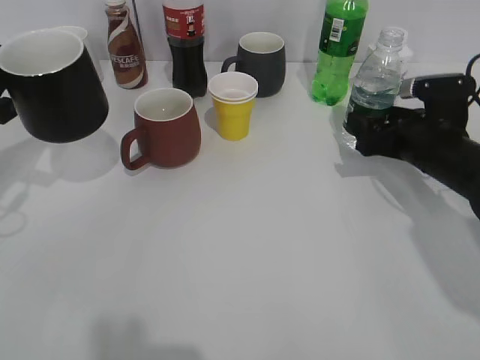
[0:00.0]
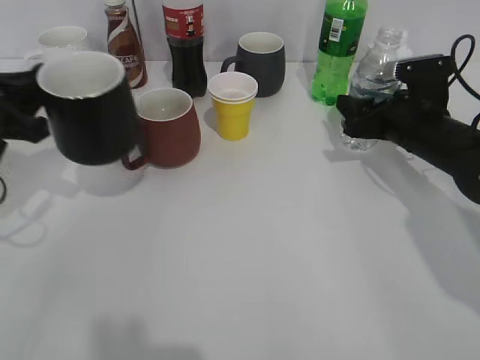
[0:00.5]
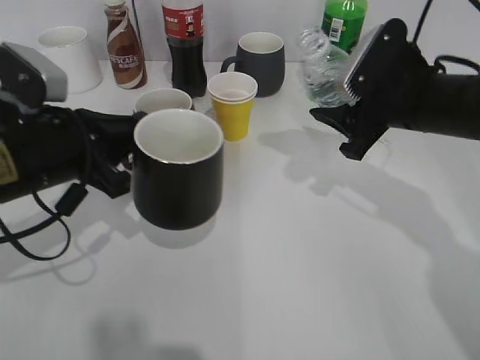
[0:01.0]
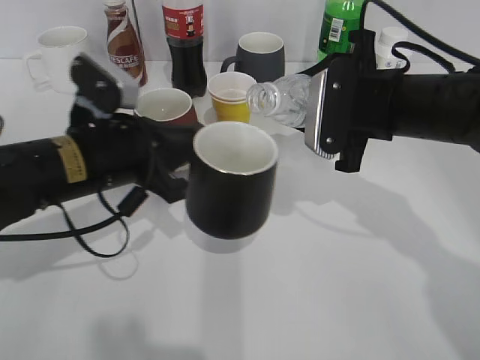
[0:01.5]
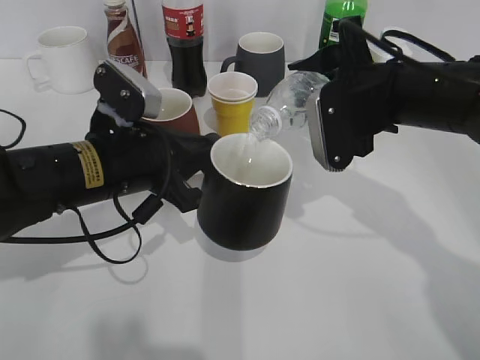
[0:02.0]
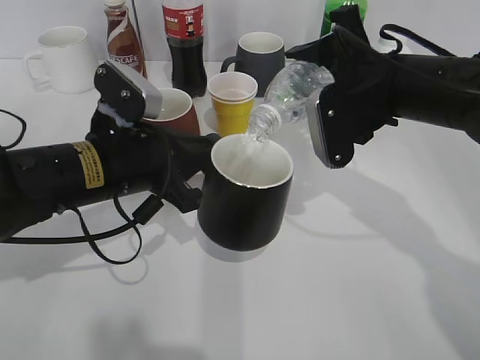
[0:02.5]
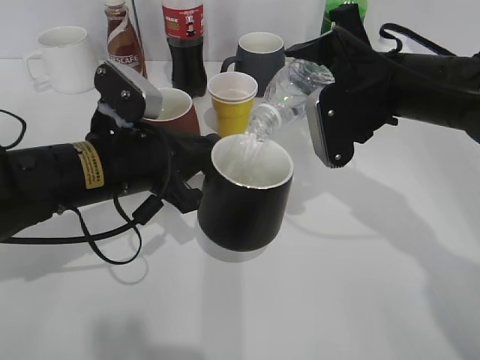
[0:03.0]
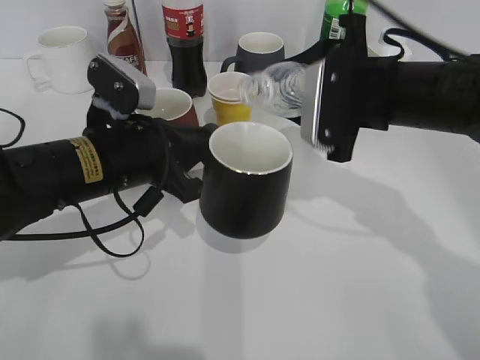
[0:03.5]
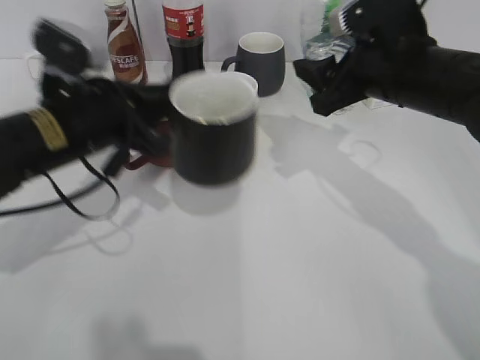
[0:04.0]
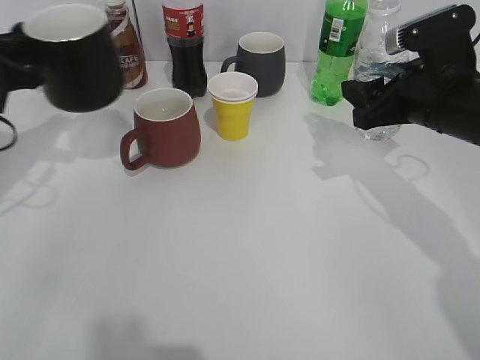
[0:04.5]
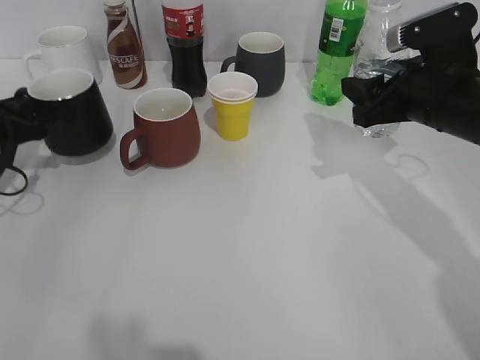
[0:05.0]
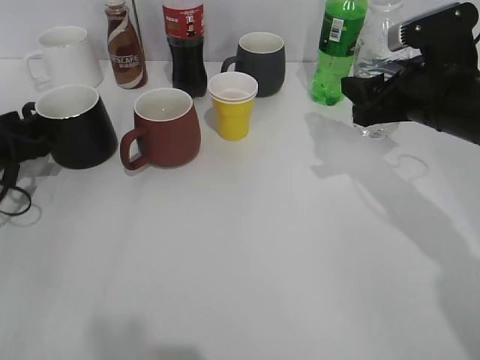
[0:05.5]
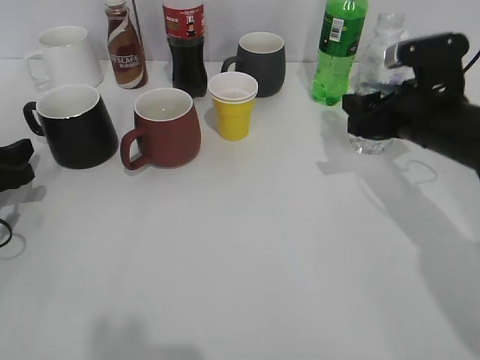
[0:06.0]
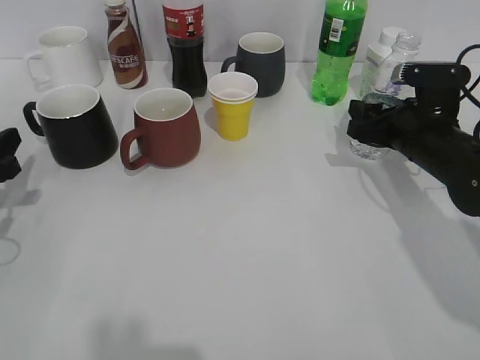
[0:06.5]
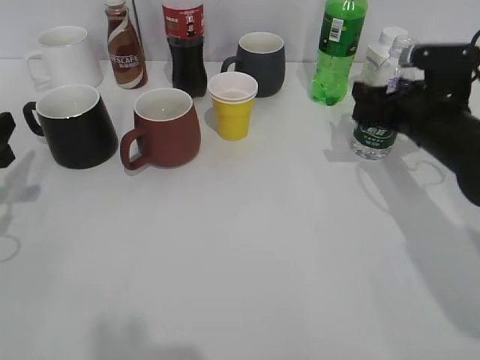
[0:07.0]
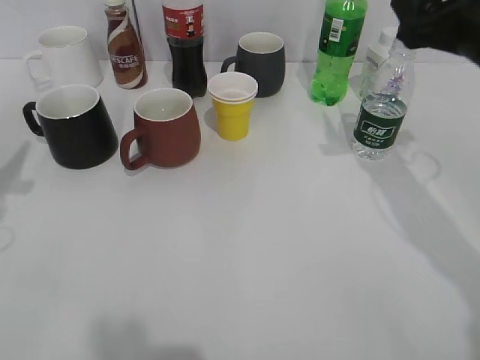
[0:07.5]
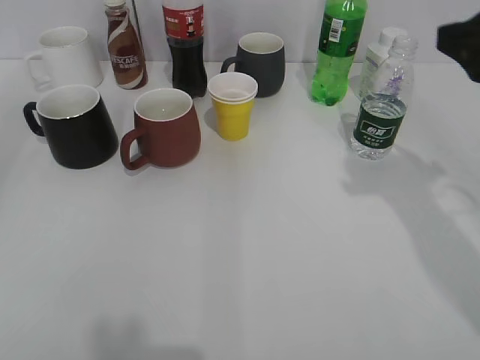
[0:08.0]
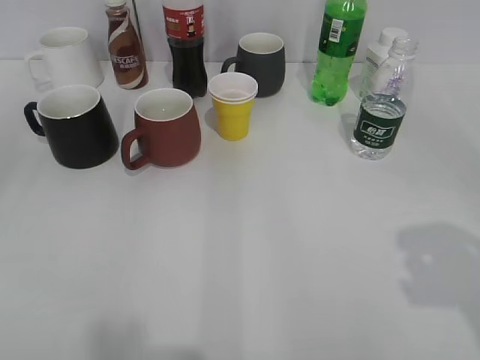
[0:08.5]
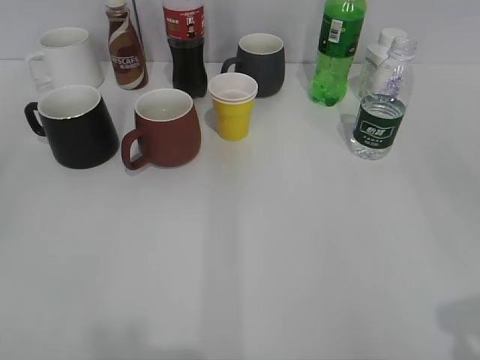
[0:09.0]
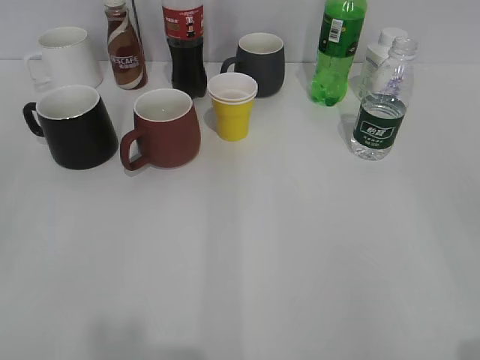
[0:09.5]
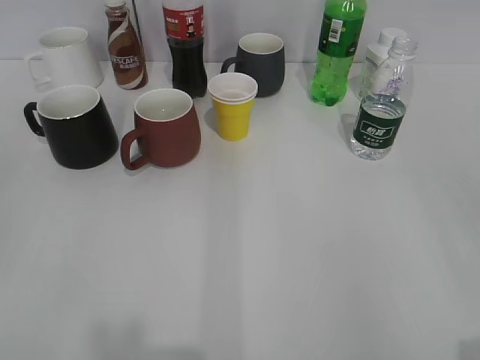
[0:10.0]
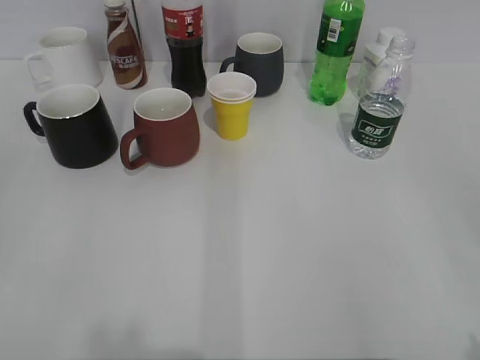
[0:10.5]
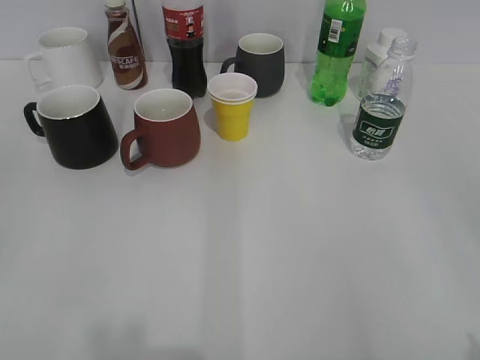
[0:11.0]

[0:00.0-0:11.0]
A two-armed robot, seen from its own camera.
Step, 0:00.5 to 0:03.5: Pour the water from bottle to cup with right gripper.
Step, 0:04.0 to 0:05.0: Place the black cup on the table with left gripper.
Step, 0:06.0 to 0:07.0: Place the water bottle on the table with right gripper.
0:00.0 to 0:02.0: The left gripper heads to the right, covering roughly 20 cm. The right gripper shifts about 15 cm upward and to the left, and closes its fingers.
0:02.0 to 0:03.5: The grippers stay close to where they were, moving slightly.
0:03.5 to 0:05.5: The left gripper moves to the left, roughly 20 cm, and opens. The right gripper moves to the right, approximately 5 cm.
0:05.5 to 0:07.5: The left gripper moves upward and backward, about 15 cm. Meanwhile the right gripper shifts about 5 cm upward, and opens.
0:07.5 to 0:09.0: The left gripper travels backward and upward by approximately 25 cm, while the right gripper shifts some 30 cm backward.

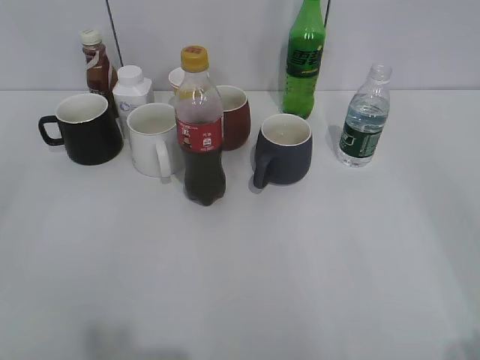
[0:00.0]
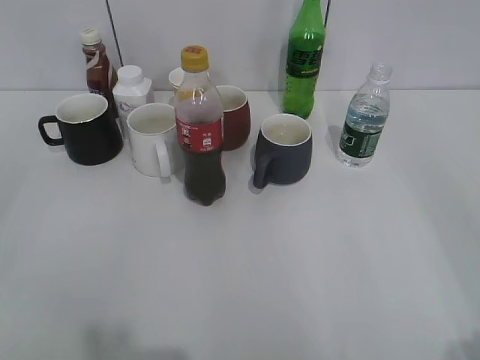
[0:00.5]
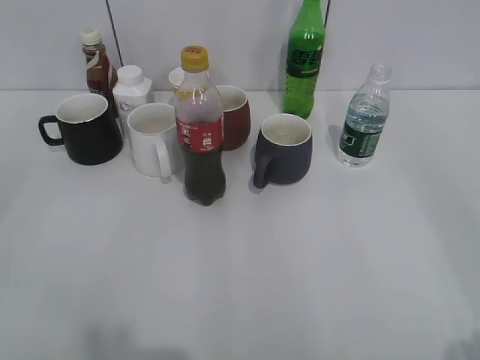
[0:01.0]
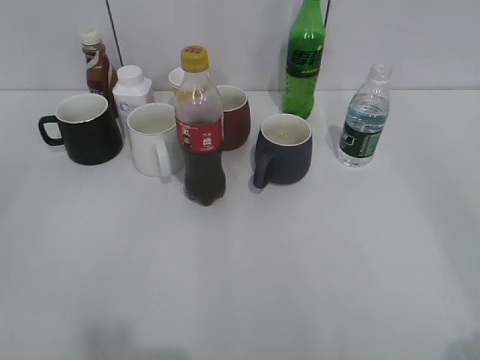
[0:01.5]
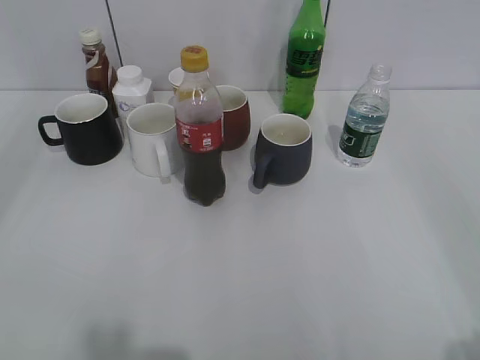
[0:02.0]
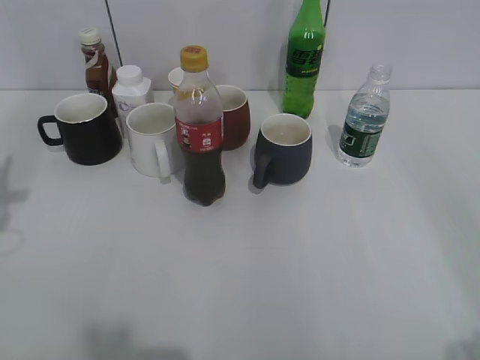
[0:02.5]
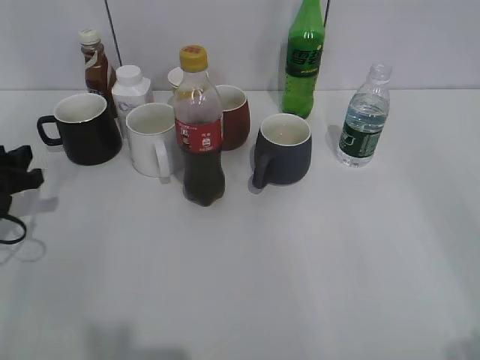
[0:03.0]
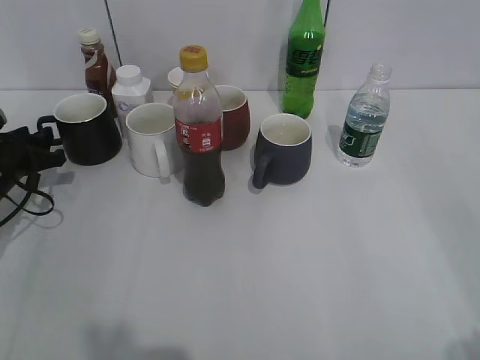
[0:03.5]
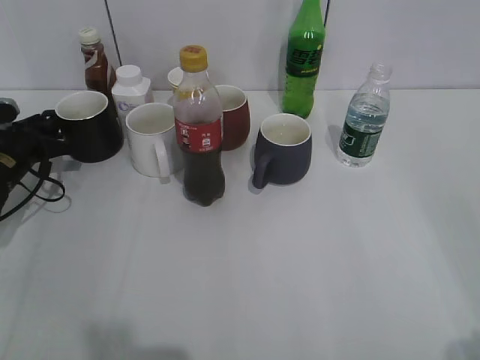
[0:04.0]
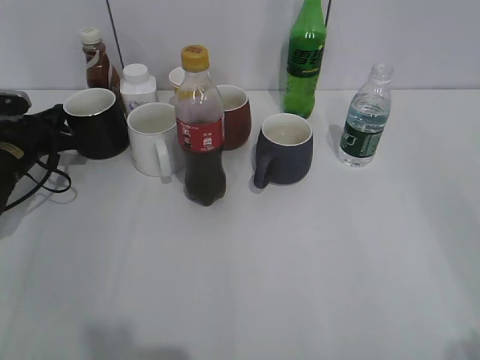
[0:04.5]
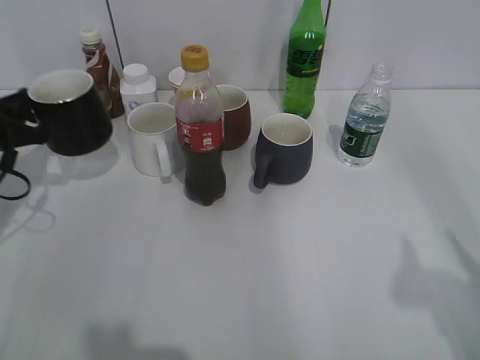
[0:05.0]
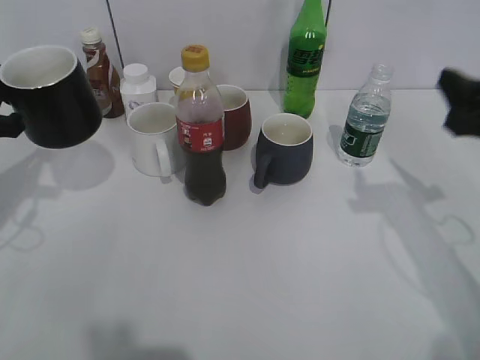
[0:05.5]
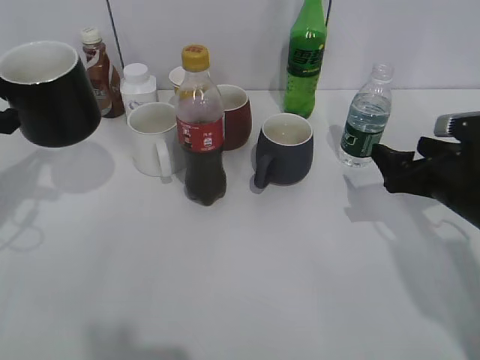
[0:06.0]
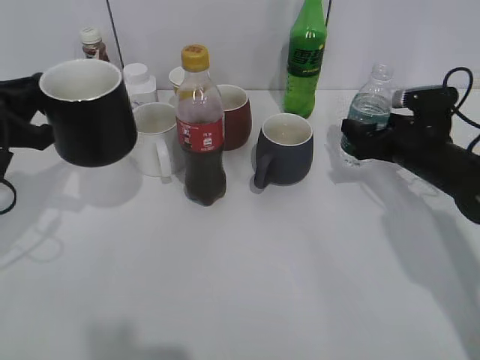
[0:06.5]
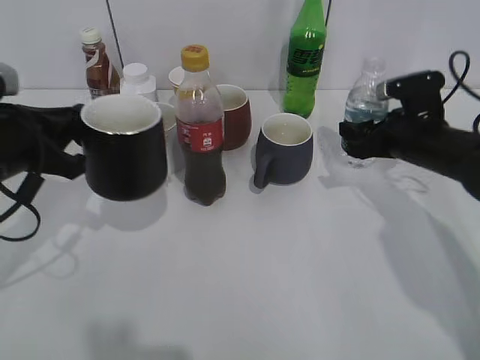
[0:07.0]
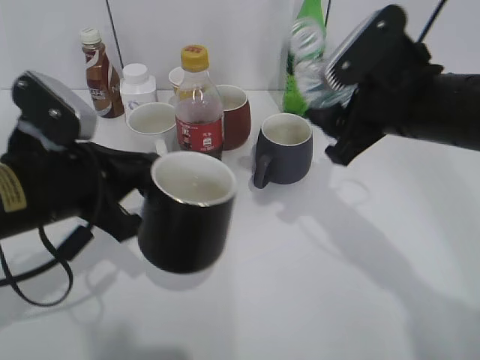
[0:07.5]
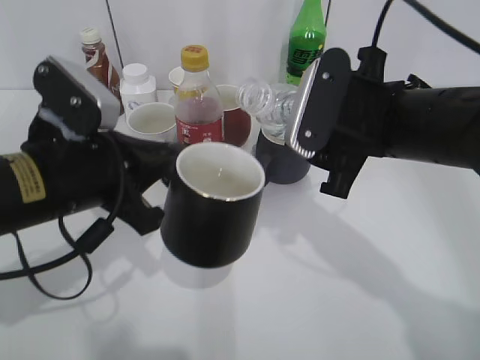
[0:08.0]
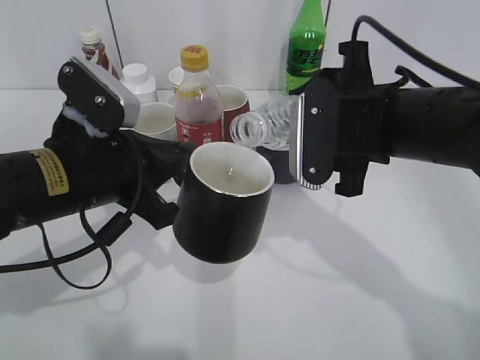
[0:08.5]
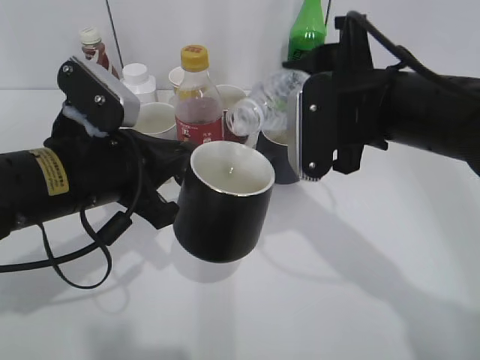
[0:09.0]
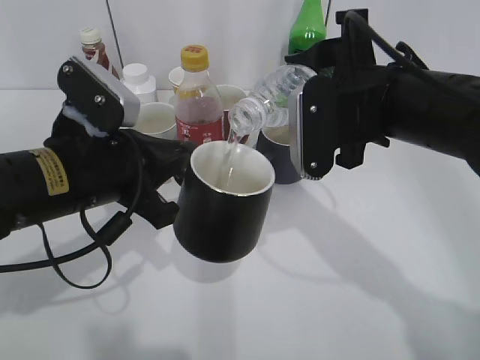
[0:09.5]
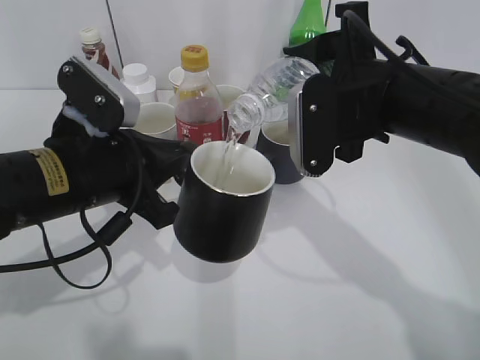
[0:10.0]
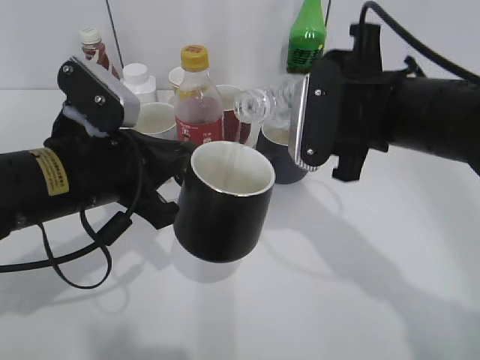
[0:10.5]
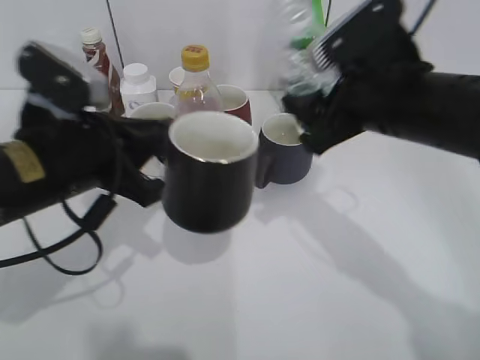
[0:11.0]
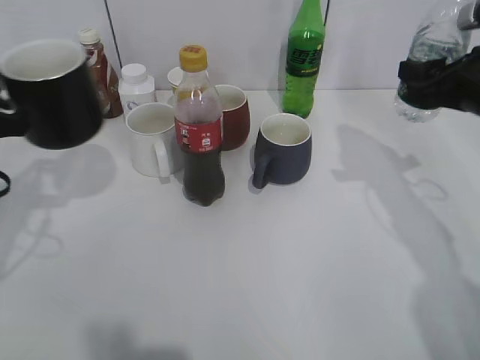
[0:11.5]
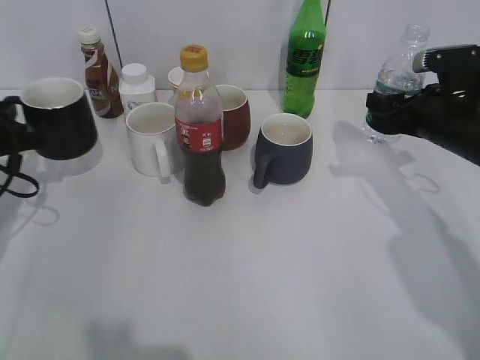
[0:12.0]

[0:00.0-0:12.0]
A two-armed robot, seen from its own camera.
Step, 0:02.0 to 0:04.0: Grasp the black cup with left gripper.
Step, 0:04.5 to 0:05.0: Lift the black cup with left gripper.
Step, 0:05.5 to 0:06.5: Grasp the bottle with water with right gripper.
Step, 0:07.0 to 0:10.5: Pour the water from bottle to cup with right gripper.
0:02.0 to 0:04.0: The left gripper shifts about 40 cm forward and downward.
0:04.0 to 0:06.0: The left gripper moves upward and backward, about 20 cm, and closes up, while the right gripper travels forward and downward by some 35 cm, and opens.
0:06.0 to 0:08.0: The right gripper travels to the left and upward by about 15 cm, and closes up; the left gripper is displaced to the right and backward by approximately 15 cm.
0:10.0 to 0:12.0: The right gripper travels to the right, downward and forward by roughly 20 cm. The left gripper travels to the left, forward and downward by some 20 cm.

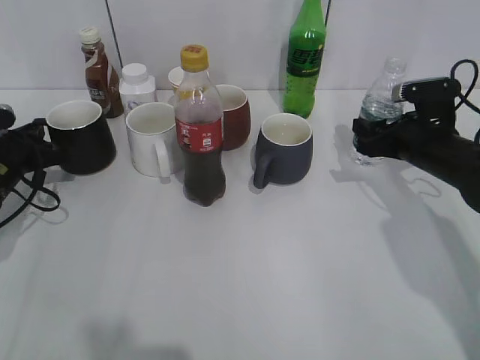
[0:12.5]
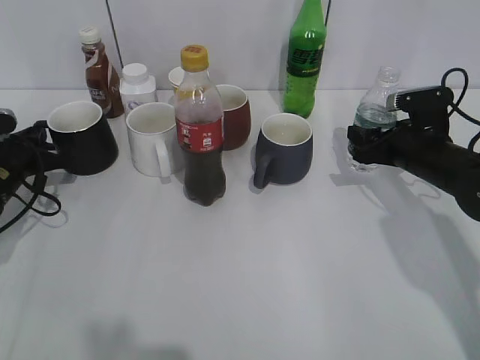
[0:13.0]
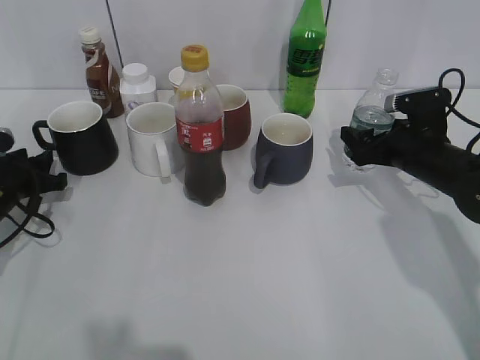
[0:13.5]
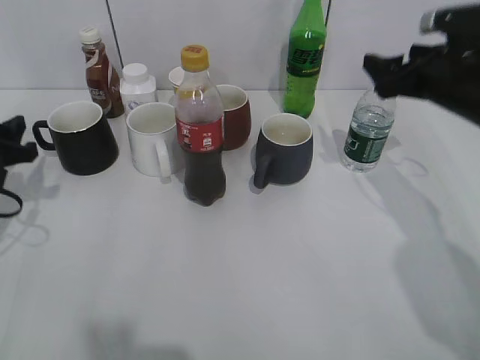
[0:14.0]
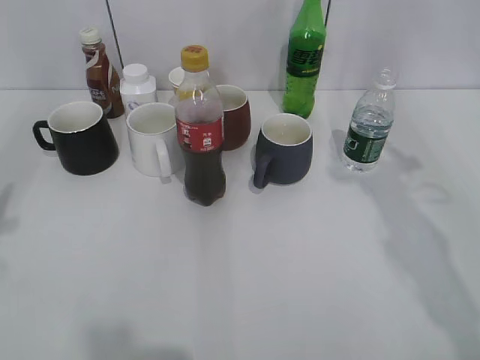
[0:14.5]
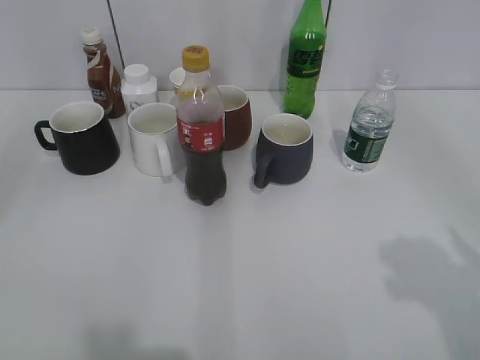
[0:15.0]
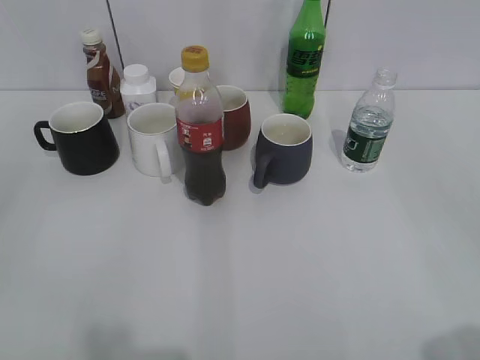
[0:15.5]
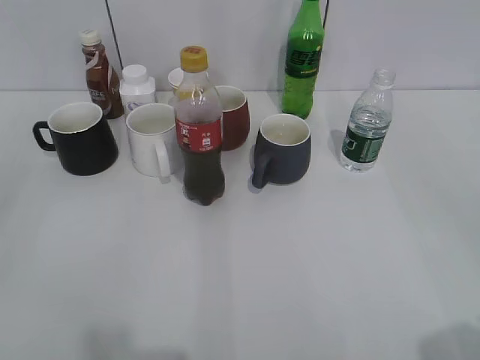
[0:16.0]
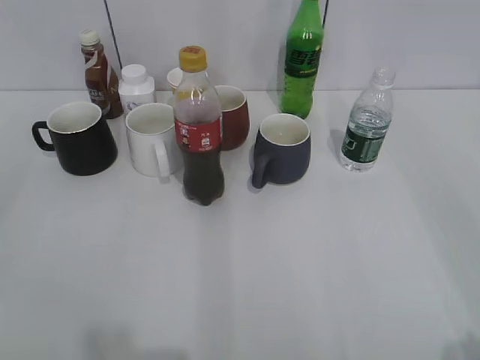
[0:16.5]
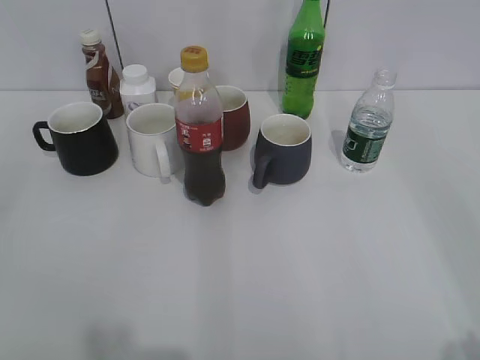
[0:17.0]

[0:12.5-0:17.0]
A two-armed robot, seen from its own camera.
0:12.5 to 0:14.5: The grippers both shift upward and backward by approximately 25 cm. The left gripper opens up; the right gripper opens.
0:14.5 to 0:17.0: The left gripper heads backward, covering approximately 20 cm.
